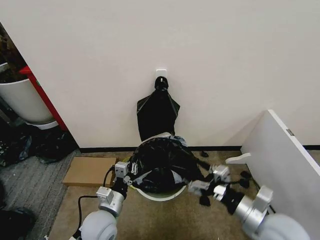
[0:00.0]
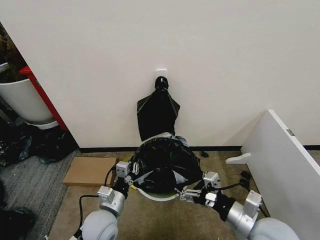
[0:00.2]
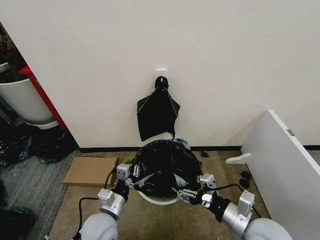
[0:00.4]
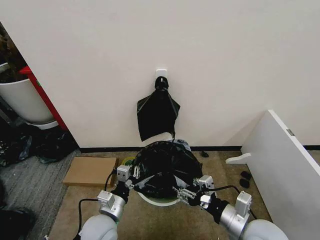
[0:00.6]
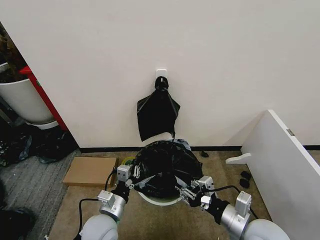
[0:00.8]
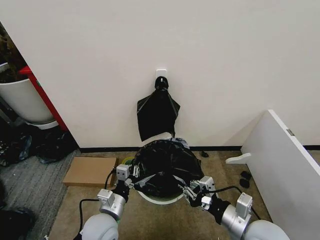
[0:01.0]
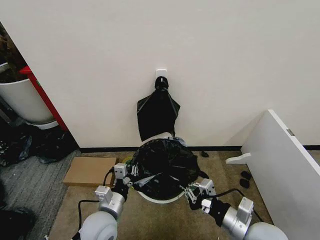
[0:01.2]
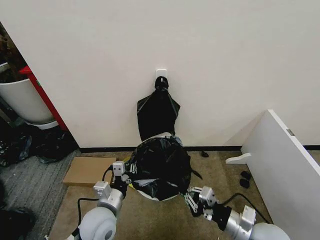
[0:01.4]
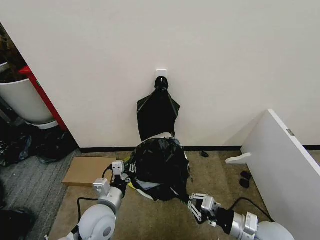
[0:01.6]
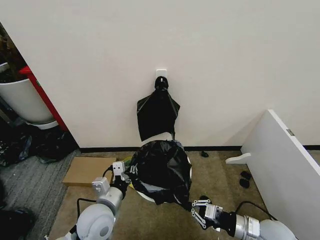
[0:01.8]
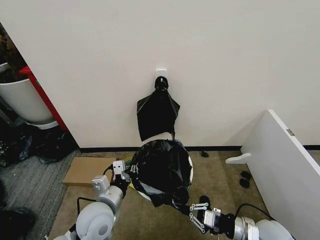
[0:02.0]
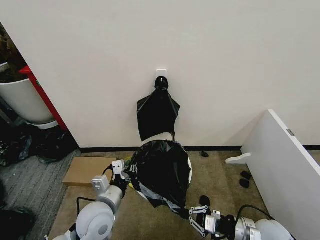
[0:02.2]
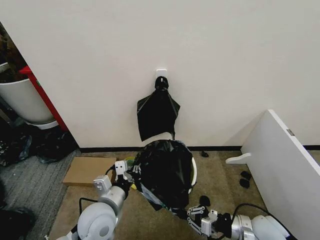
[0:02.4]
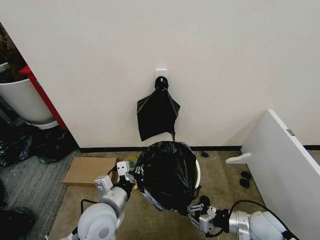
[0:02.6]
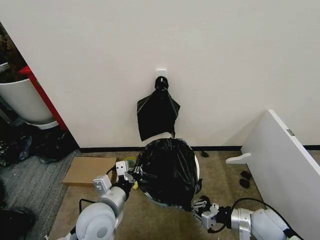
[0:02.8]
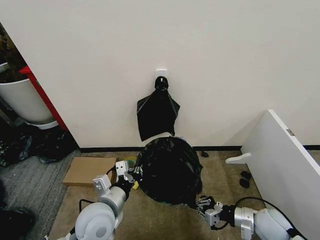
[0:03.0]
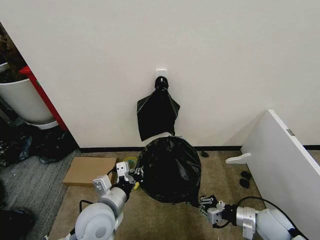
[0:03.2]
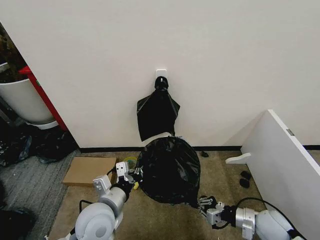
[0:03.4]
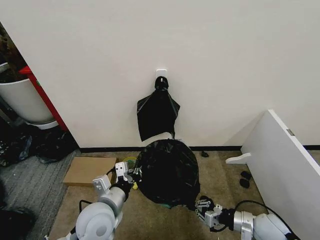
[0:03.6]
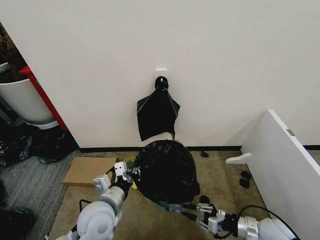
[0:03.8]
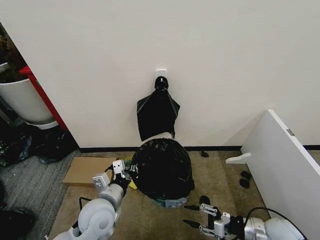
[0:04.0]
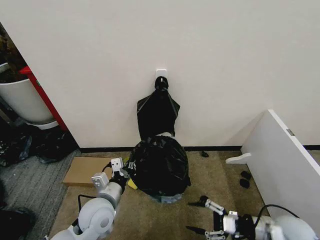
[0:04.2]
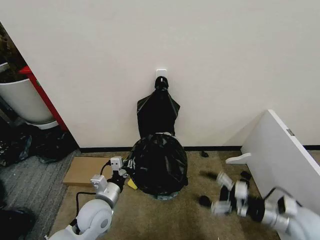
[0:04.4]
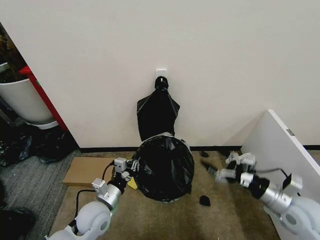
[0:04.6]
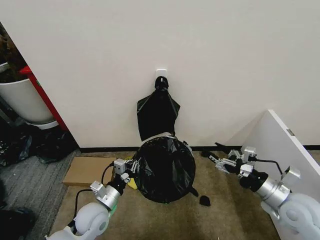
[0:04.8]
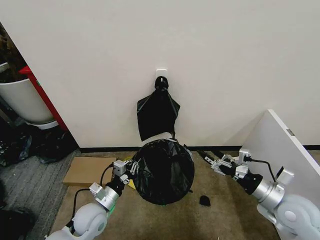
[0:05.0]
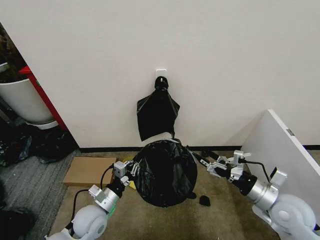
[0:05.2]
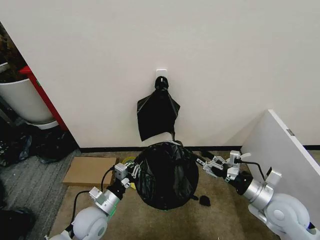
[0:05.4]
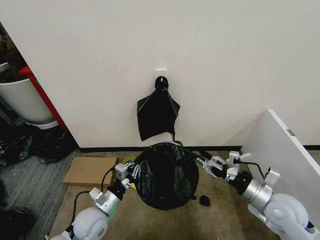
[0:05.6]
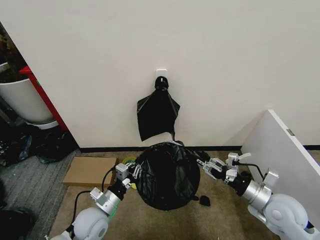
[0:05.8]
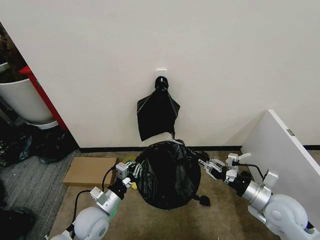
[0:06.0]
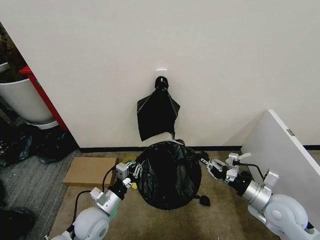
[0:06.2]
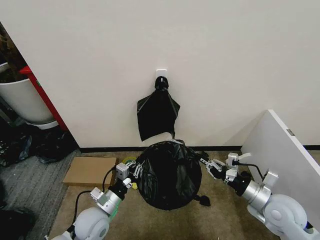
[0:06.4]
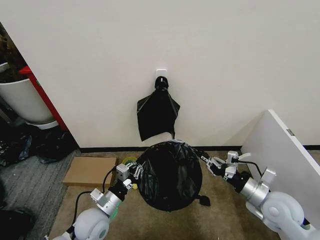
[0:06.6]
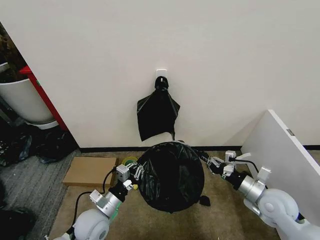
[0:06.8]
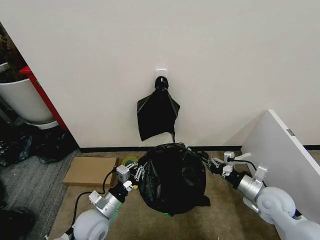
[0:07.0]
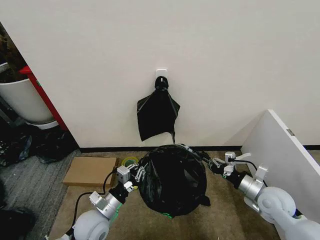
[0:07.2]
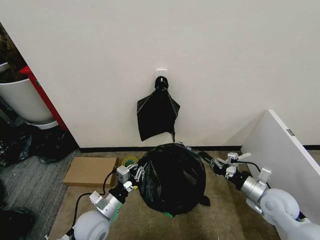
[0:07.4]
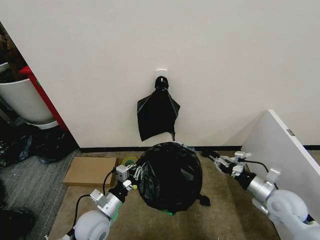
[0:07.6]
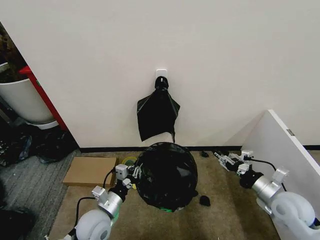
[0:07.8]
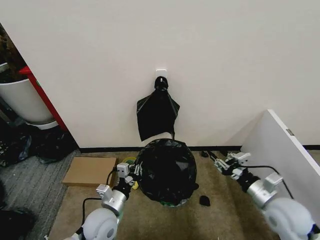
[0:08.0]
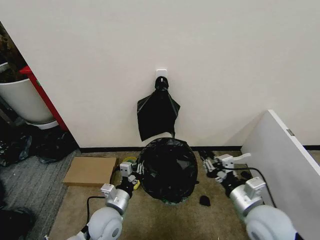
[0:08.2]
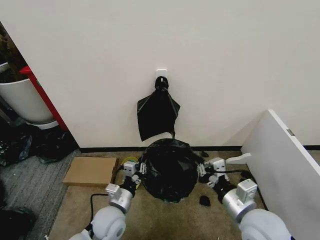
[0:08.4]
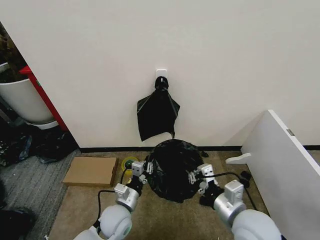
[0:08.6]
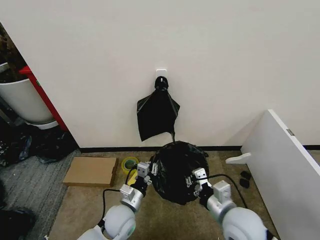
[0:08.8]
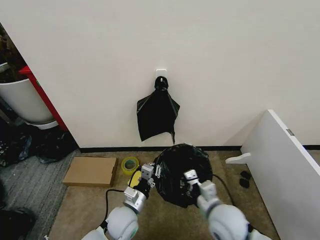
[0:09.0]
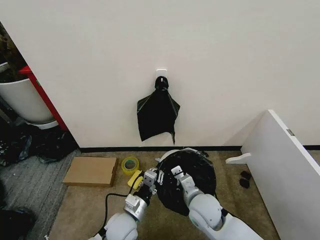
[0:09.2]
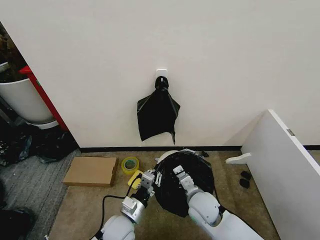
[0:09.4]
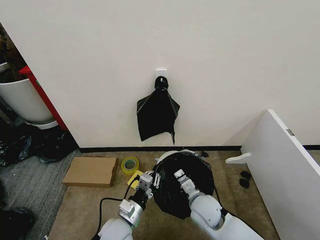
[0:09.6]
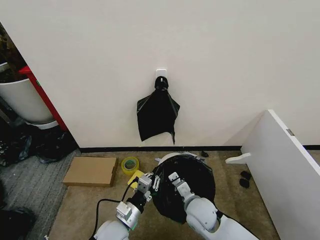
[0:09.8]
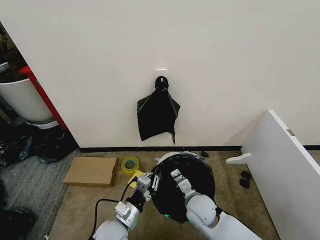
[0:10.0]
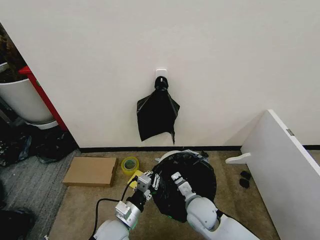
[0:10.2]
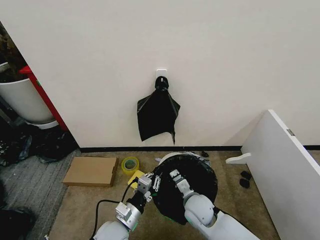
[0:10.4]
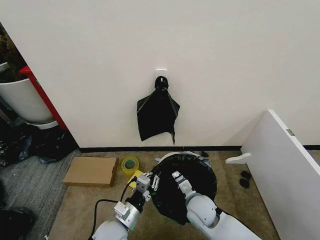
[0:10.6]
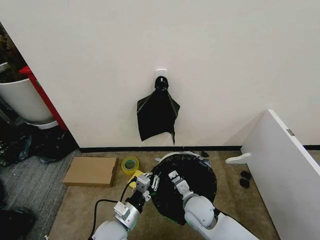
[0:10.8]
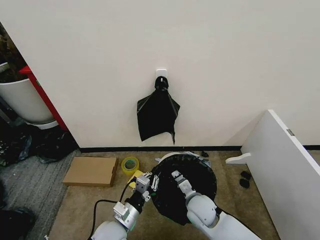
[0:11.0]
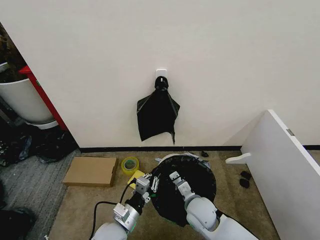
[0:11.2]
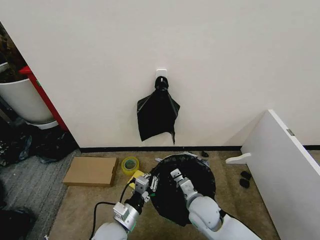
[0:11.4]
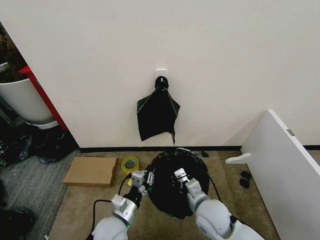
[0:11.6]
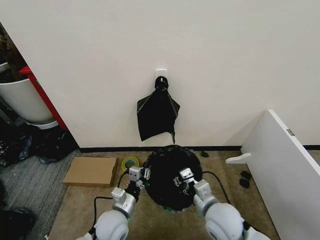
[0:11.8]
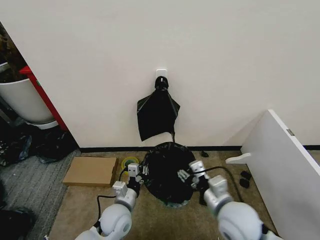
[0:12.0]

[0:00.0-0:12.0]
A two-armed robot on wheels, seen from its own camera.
Task of the whole recording: Place the garbage bag over the trash bin.
0:00.0 to 0:01.6: The right gripper moves downward, roughly 10 cm, and closes.
0:01.6 to 0:03.0: The right gripper changes place by some 10 cm.
0:03.0 to 0:04.4: The right gripper shifts approximately 10 cm upward, and opens. The left gripper moves downward, roughly 5 cm.
0:04.4 to 0:06.0: The right gripper ends up roughly 5 cm from where it was, and closes.
0:06.0 to 0:07.6: The right gripper ends up some 5 cm from where it was.
0:07.6 to 0:09.0: The left gripper goes about 10 cm to the right. Meanwhile the right gripper heads to the left, covering approximately 20 cm.
0:09.0 to 0:10.4: The right gripper moves downward and forward, approximately 10 cm. Meanwhile the left gripper shifts by some 5 cm.
0:10.4 to 0:12.0: The right gripper travels upward, to the right and backward by roughly 15 cm, and opens up; the left gripper moves forward, some 5 cm.

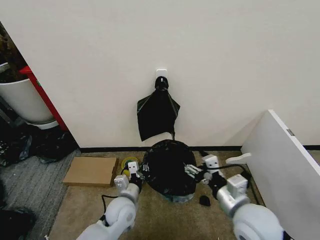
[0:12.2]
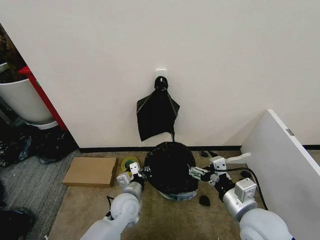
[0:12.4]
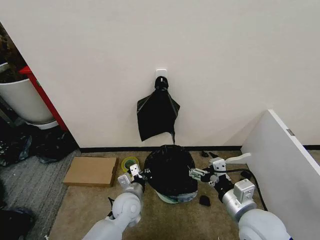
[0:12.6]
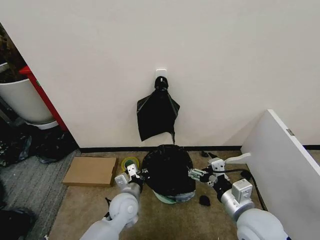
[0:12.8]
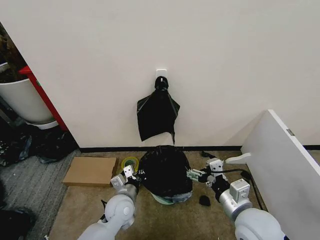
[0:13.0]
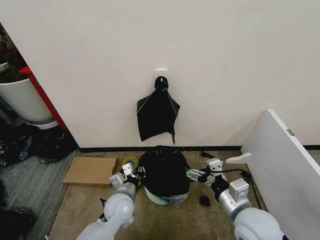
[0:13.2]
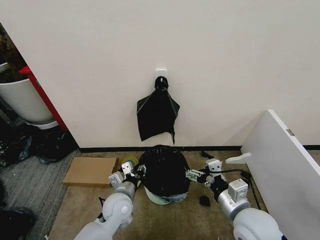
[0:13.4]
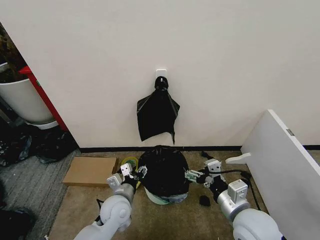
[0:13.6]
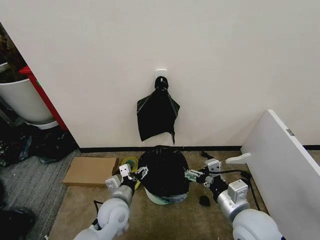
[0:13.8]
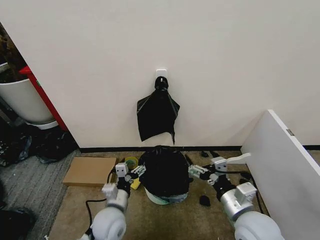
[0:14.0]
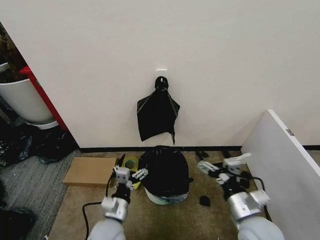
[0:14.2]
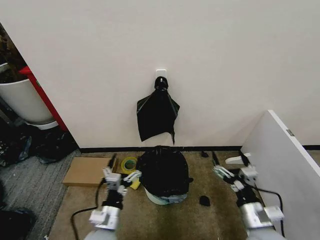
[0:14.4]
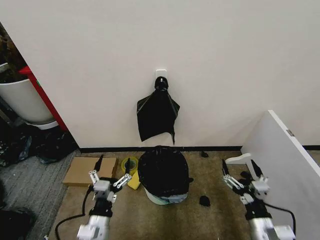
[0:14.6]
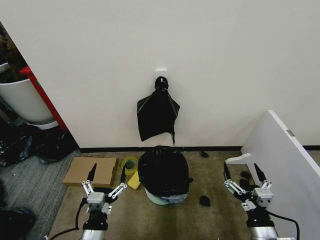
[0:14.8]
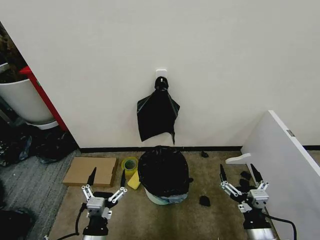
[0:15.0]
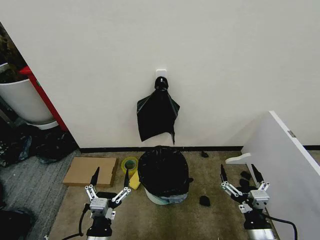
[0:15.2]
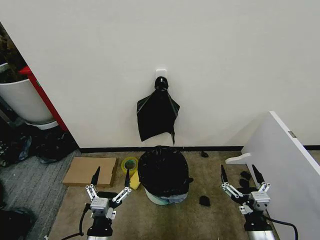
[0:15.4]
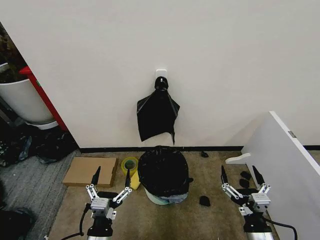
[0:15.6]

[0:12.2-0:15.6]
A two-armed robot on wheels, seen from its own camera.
Task of the whole recording: Place the garbage bag over the trash bin.
0:12.2 to 0:13.8: The left gripper opens its fingers.
0:13.8 to 0:15.6: The right gripper travels backward and downward by about 10 cm. The left gripper travels backward by some 15 cm.
